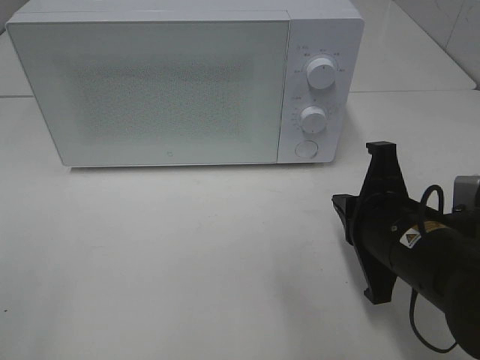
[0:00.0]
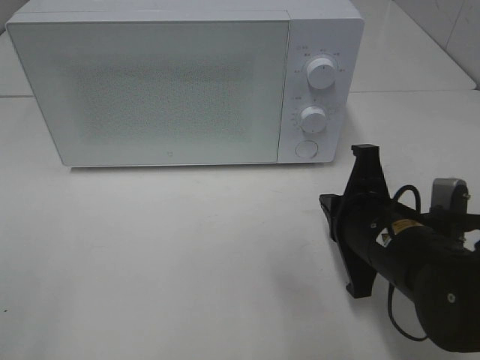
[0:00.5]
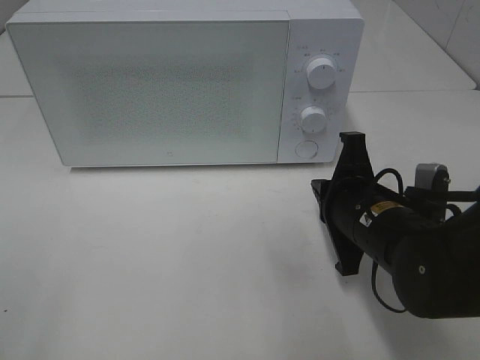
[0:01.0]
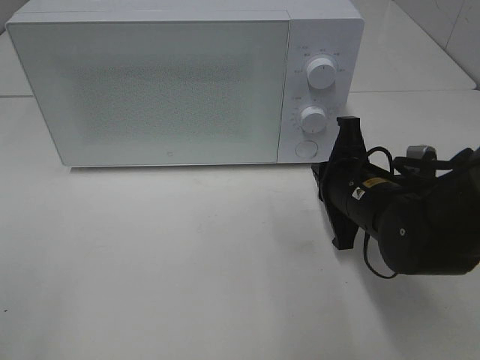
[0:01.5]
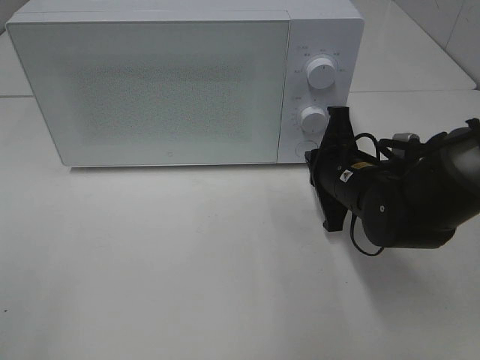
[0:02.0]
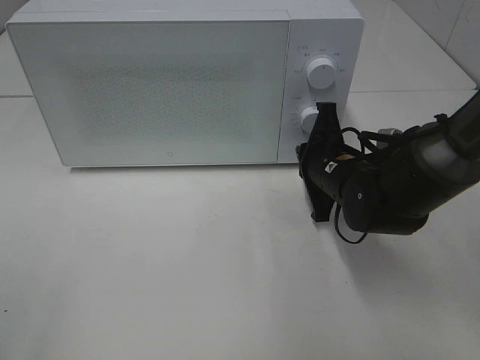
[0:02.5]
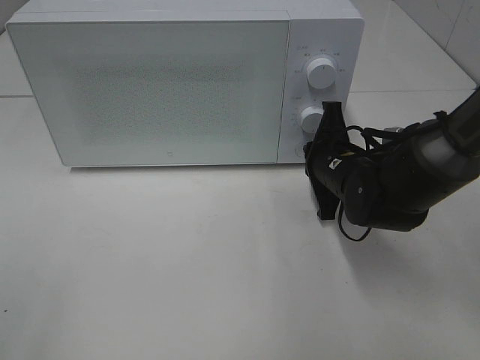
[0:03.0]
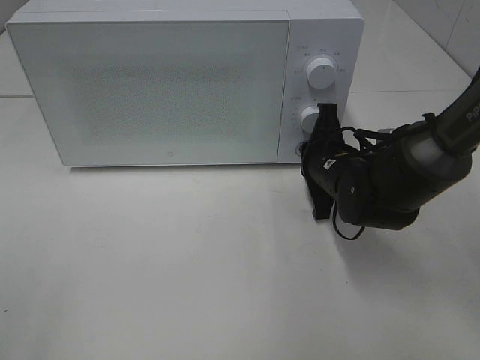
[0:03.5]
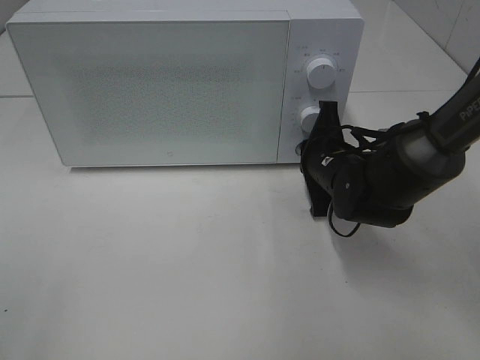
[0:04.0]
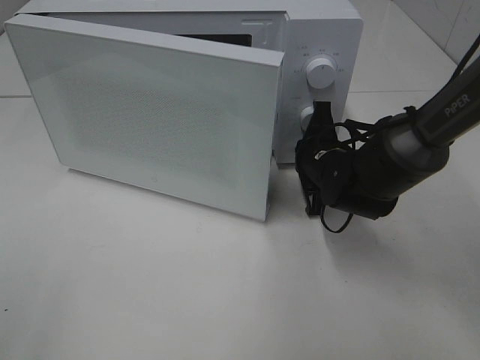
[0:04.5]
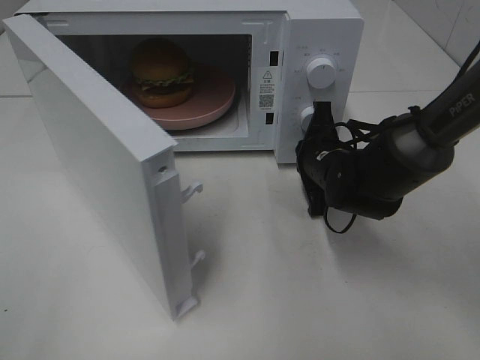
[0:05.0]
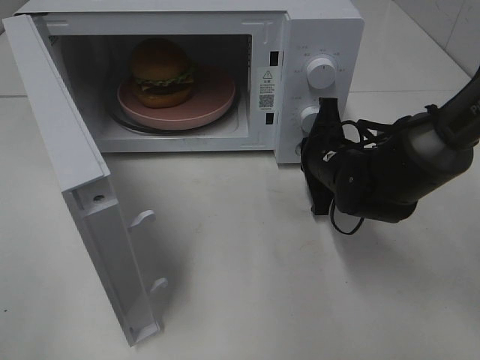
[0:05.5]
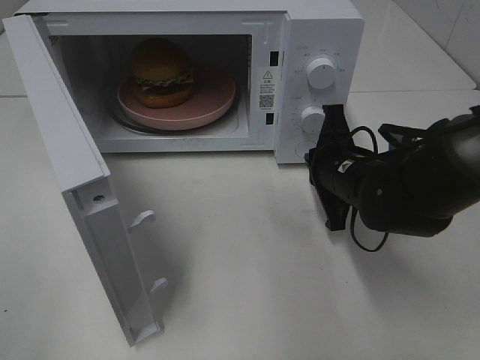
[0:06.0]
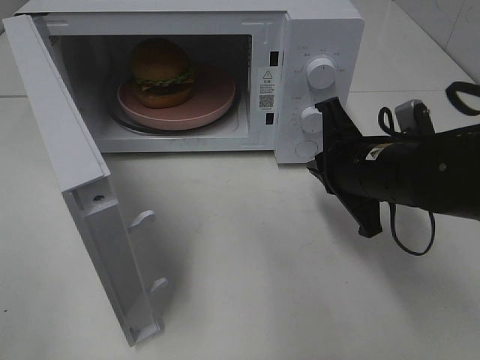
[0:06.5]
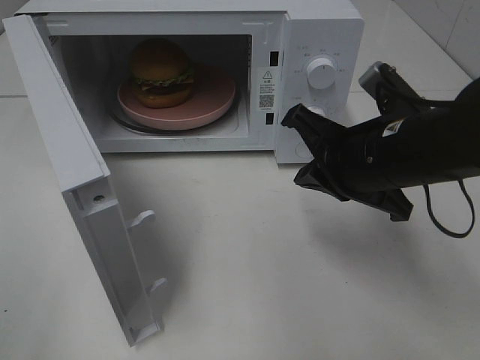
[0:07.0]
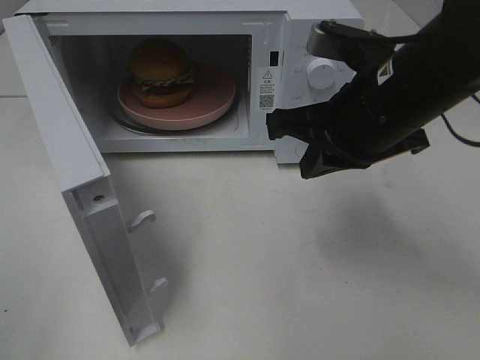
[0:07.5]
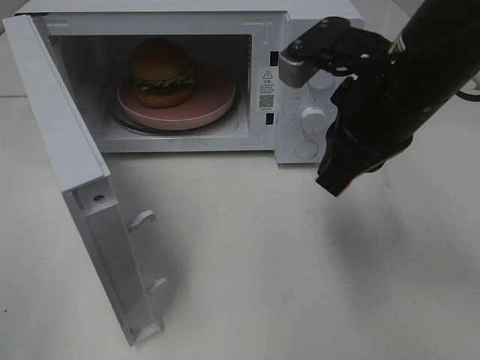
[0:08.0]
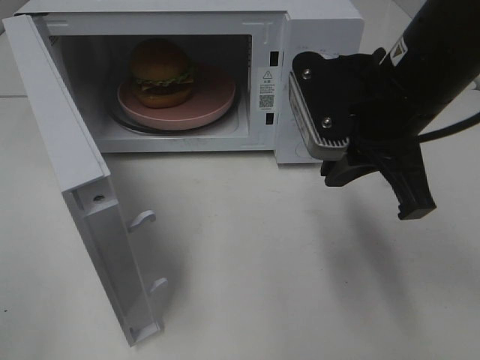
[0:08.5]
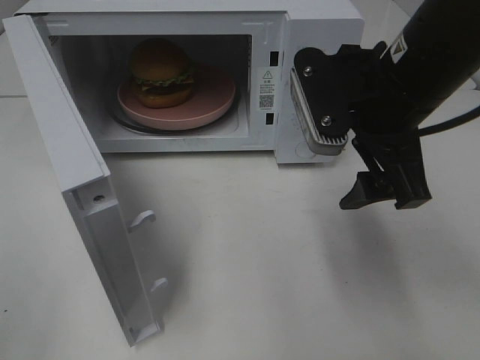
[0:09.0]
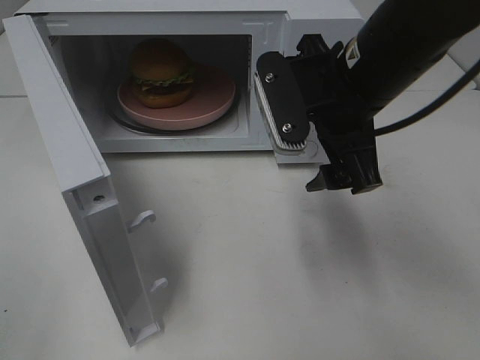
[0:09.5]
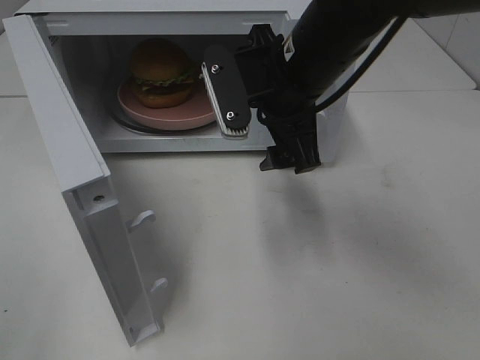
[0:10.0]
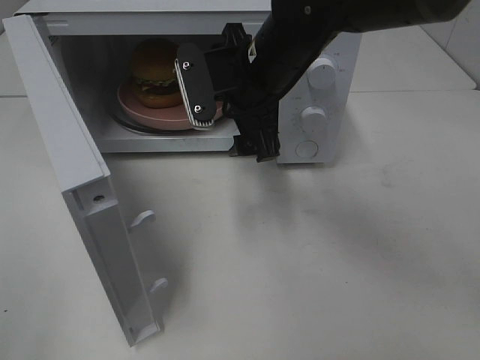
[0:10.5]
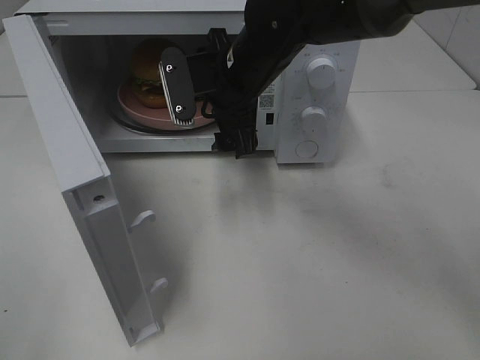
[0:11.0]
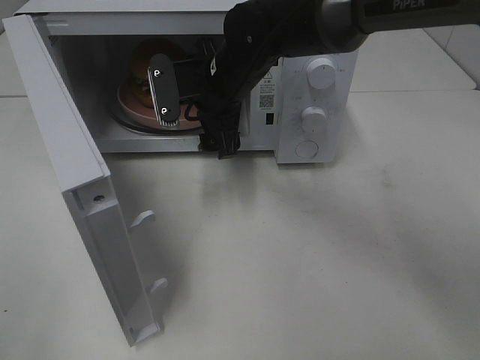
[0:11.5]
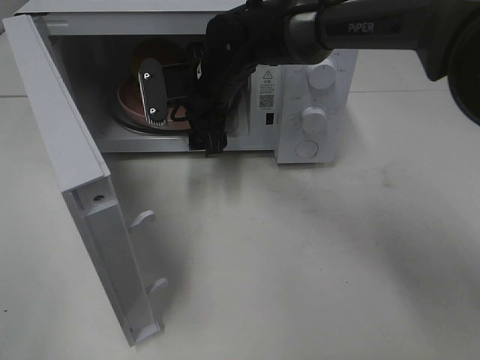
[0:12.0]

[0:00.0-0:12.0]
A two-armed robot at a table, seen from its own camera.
Task of the whole recording: Heat the burger.
Step, 0:00.0 to 0:05.5: Right hand: press the switch.
0:00.0 to 0:02.0: The right gripper moves forward, some 10 cm.
0:02.0 to 0:04.0: There are only small adjustments of the grippers.
0:06.0 to 0:08.0: The right gripper heads upward, covering some 15 cm.
0:08.0 to 0:10.0: The right gripper travels to the left and forward by about 10 cm, and opens.
0:10.0 to 0:12.0: The right gripper shifts roughly 15 cm forward, to the left and downward.

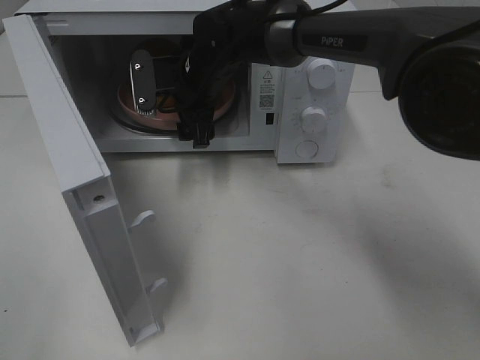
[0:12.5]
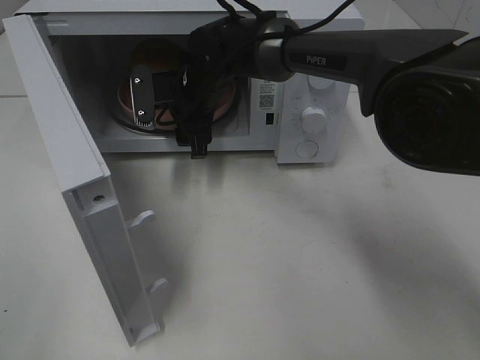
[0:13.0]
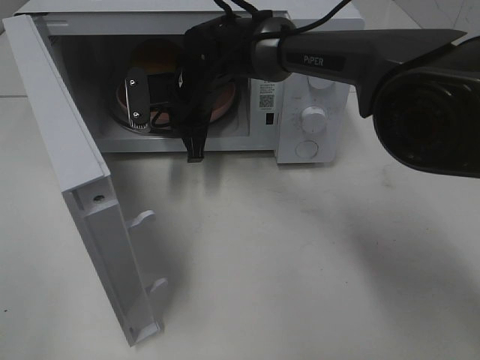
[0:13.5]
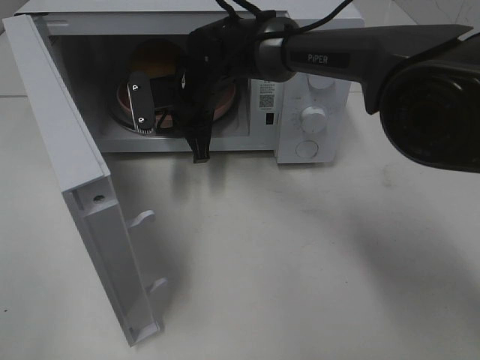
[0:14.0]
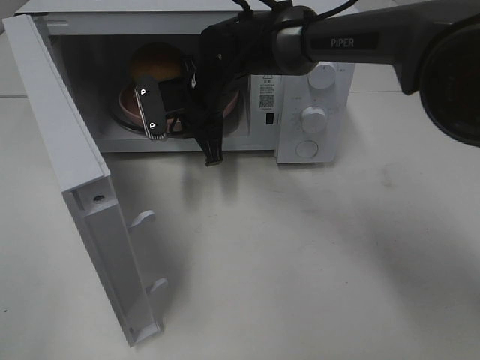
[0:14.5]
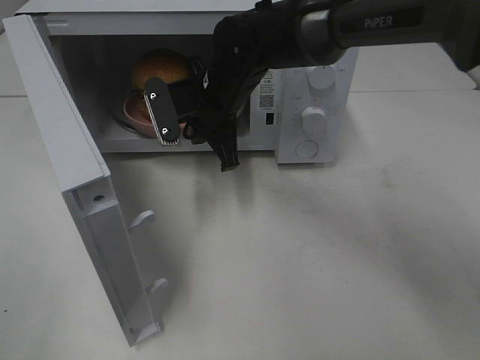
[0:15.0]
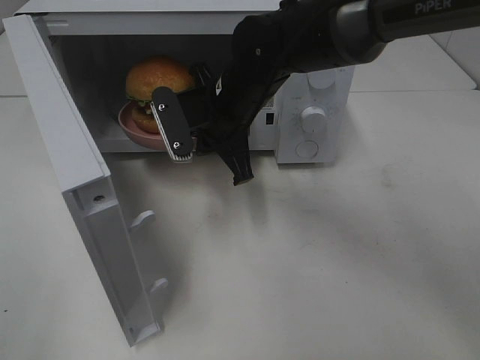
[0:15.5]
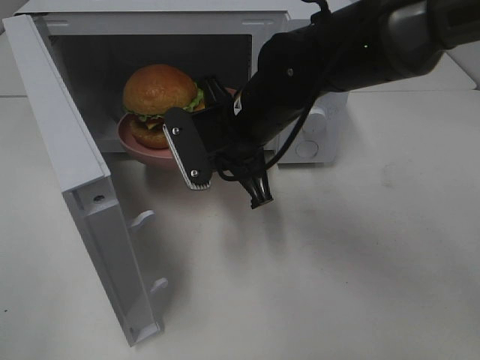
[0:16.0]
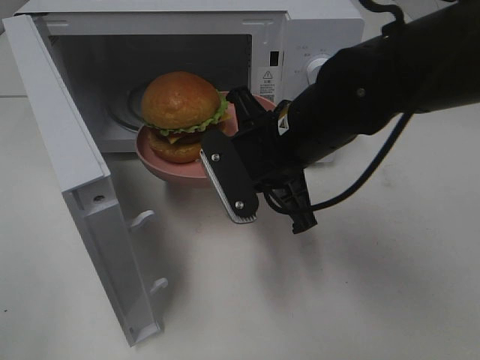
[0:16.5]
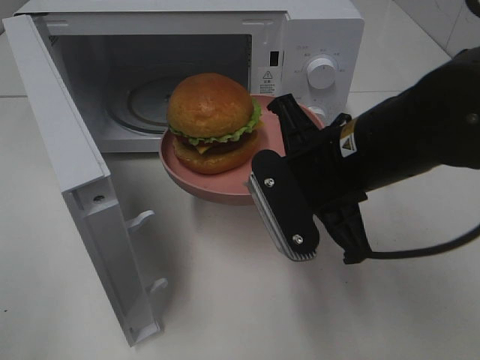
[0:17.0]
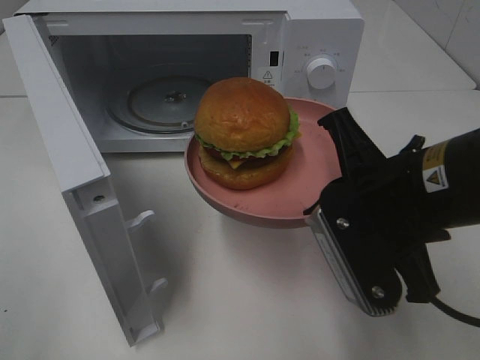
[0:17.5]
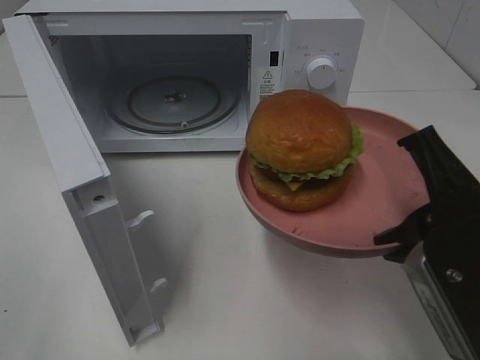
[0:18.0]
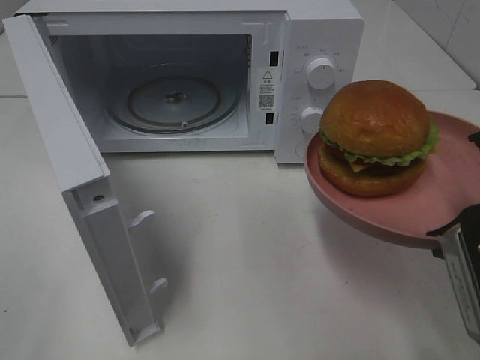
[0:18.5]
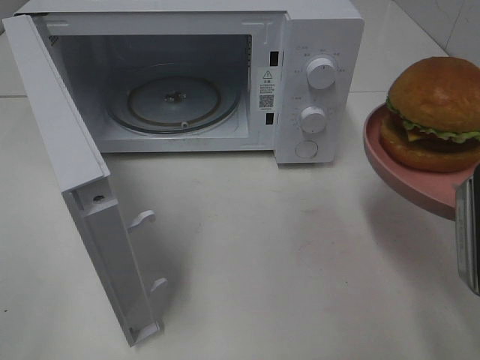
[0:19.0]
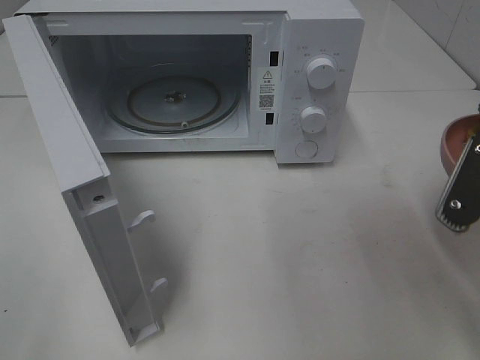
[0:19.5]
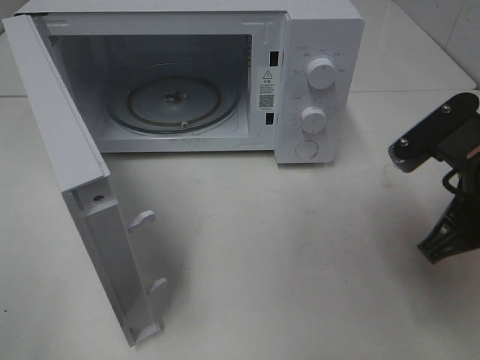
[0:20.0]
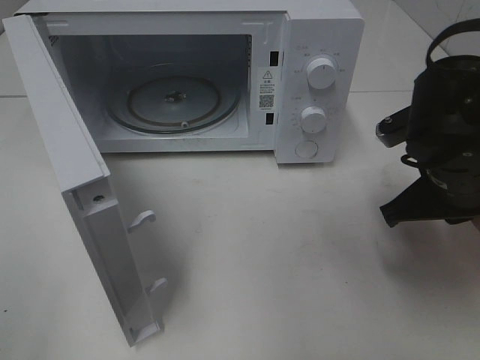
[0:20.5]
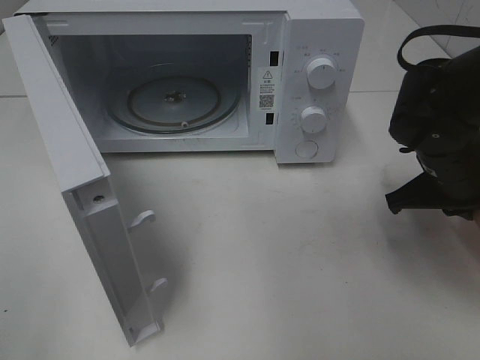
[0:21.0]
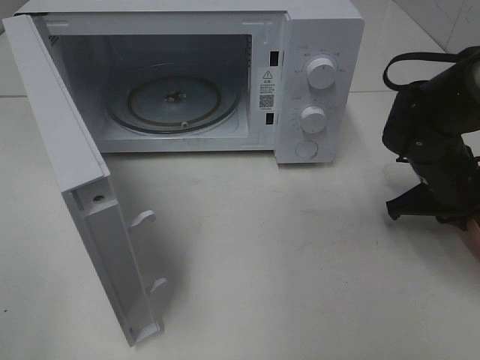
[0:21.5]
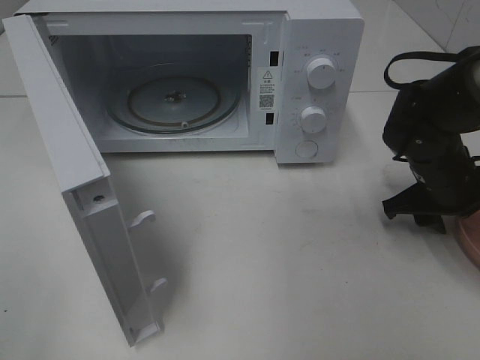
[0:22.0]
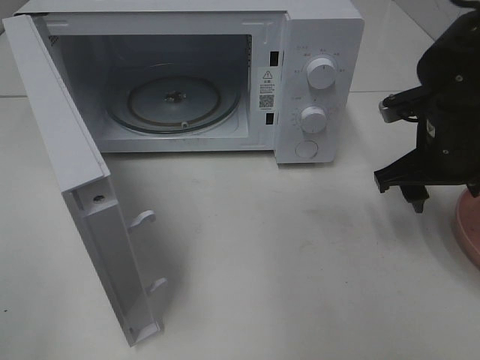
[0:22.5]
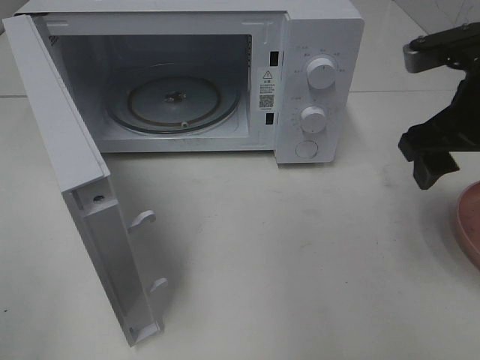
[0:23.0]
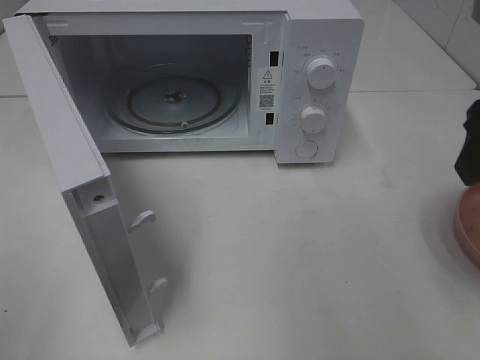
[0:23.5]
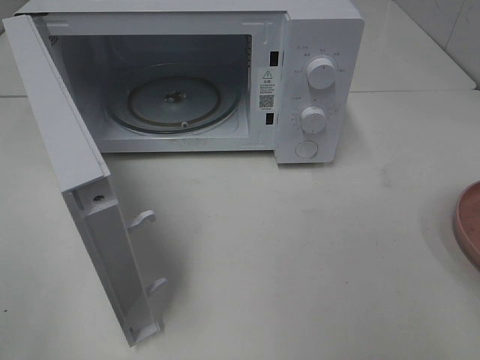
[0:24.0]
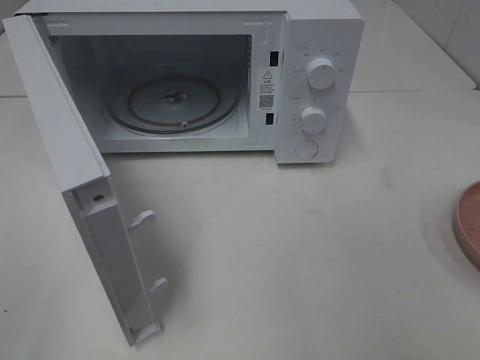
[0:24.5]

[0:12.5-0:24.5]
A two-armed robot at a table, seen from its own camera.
Task of the whole recording: Heat the burger.
Step, 0:14.0 to 0:22.5: Right hand: place the plate on the table.
0:12.5 to 0:14.5: The right gripper closes its fingers.
0:14.5 to 0:16.5: The right gripper heads backward and to the right, covering about 15 cm.
0:16.5 to 0:18.5: The right gripper shifts roughly 20 cm backward and to the right.
0:18.5 to 0:20.5: The right gripper moves forward and downward, approximately 15 cm.
0:20.5 to 0:22.5: The right gripper is displaced forward by approximately 5 cm, and opens up.
0:22.5 to 0:24.5: The right gripper is displaced backward and upward by about 30 cm.

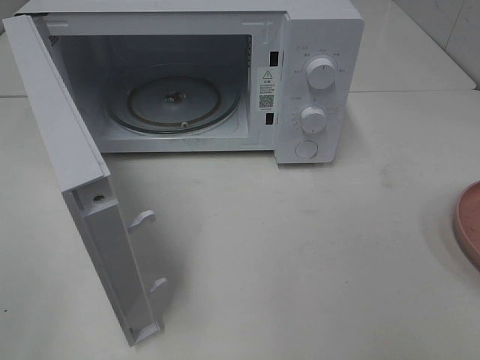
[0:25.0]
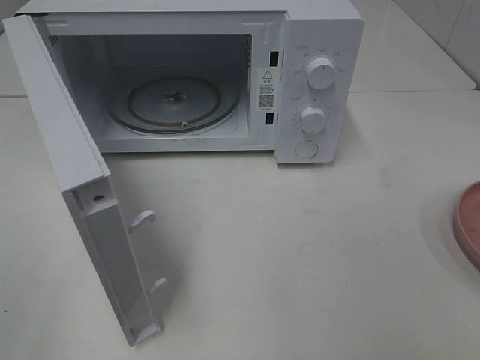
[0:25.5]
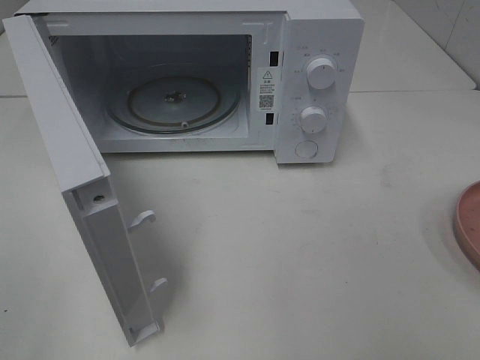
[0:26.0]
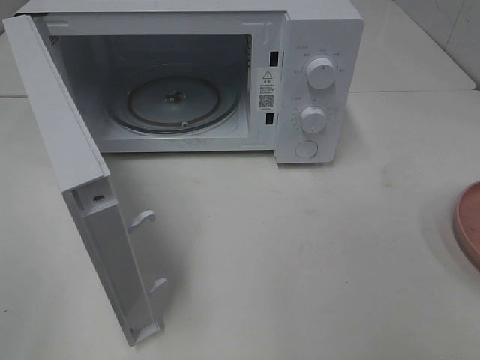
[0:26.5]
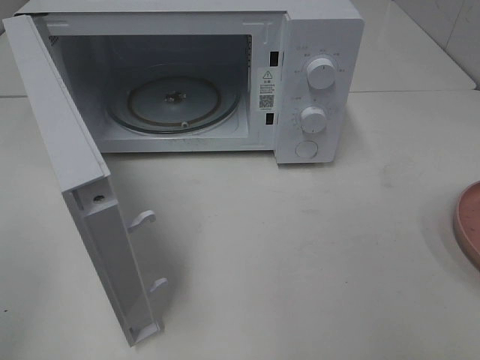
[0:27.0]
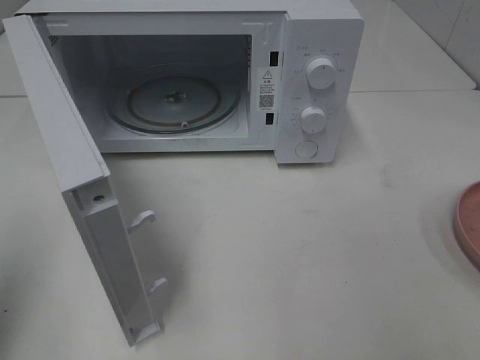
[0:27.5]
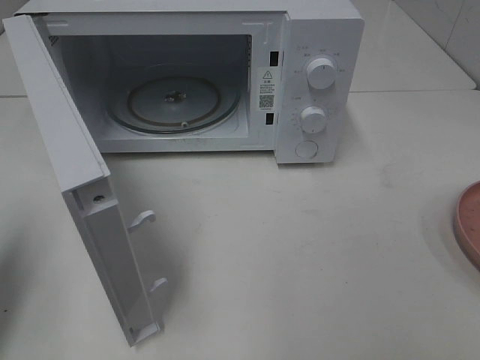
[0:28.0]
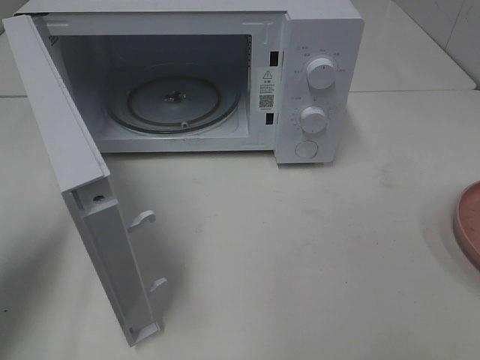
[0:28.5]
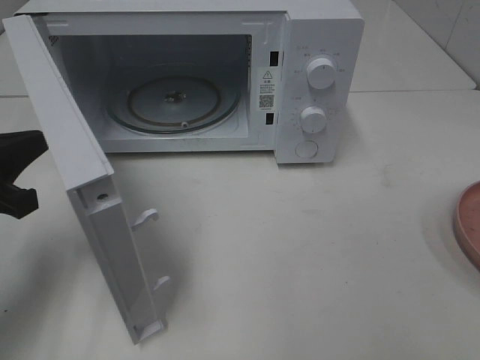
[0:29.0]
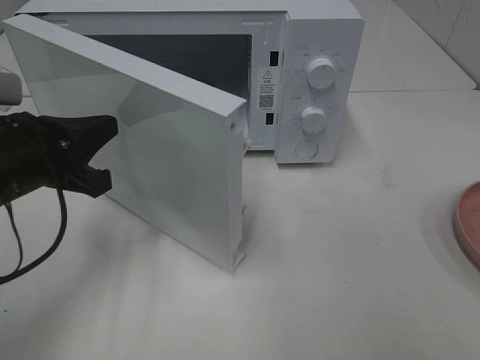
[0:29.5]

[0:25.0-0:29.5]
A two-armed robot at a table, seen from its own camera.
Task of the whole recording: Heat the burger.
0:27.0 to 0:29.5: The left gripper moves forward, downward and to the right, roughly 25 cm, and closes up.
